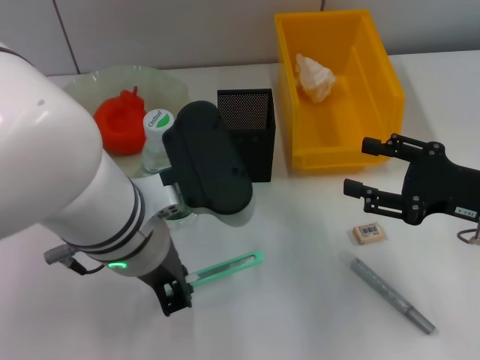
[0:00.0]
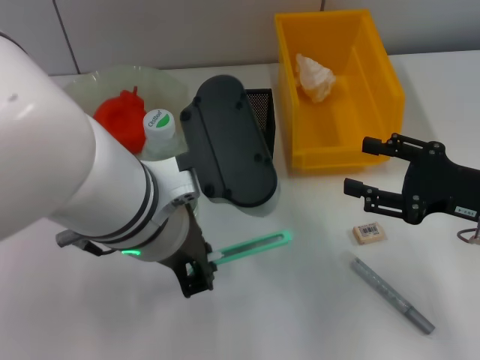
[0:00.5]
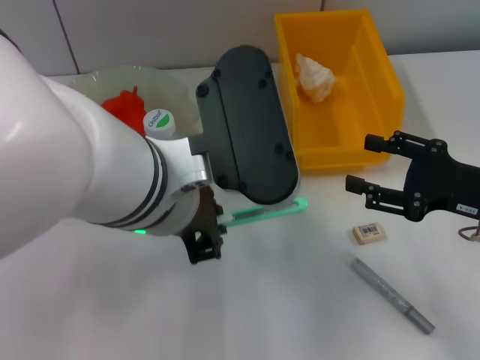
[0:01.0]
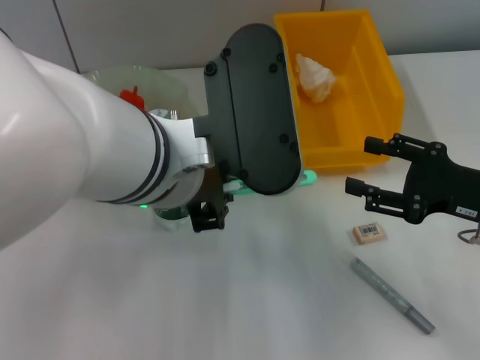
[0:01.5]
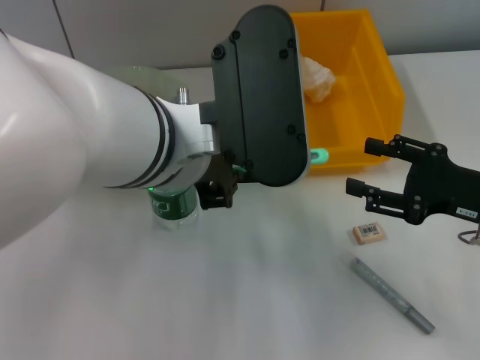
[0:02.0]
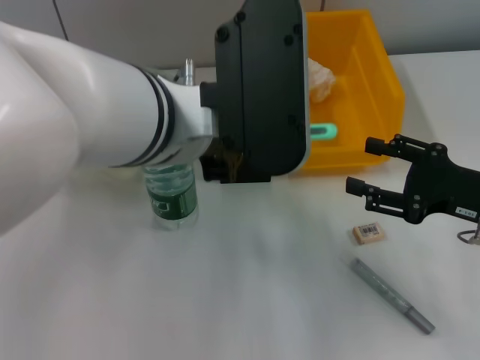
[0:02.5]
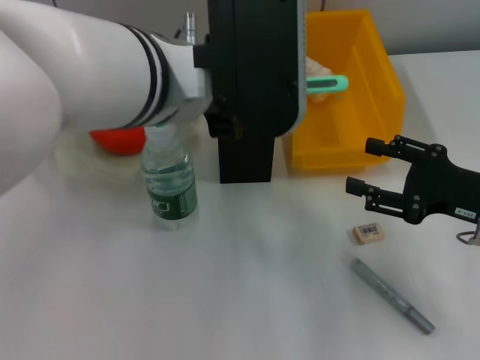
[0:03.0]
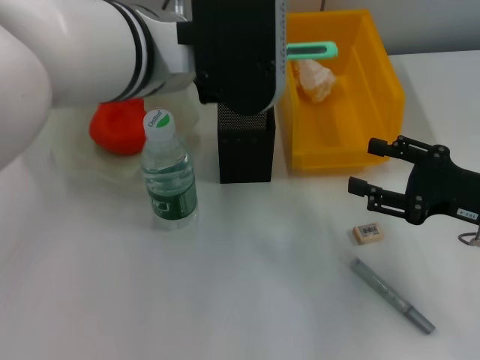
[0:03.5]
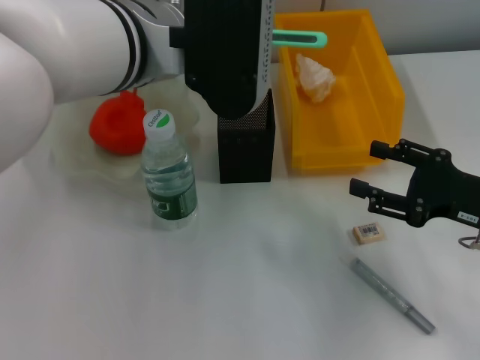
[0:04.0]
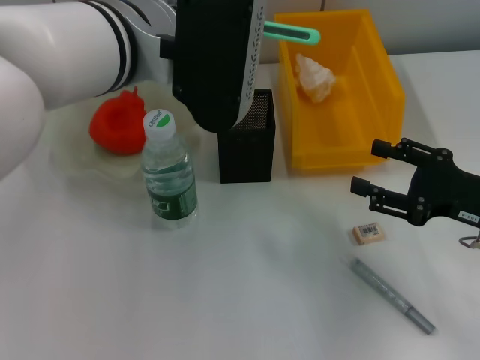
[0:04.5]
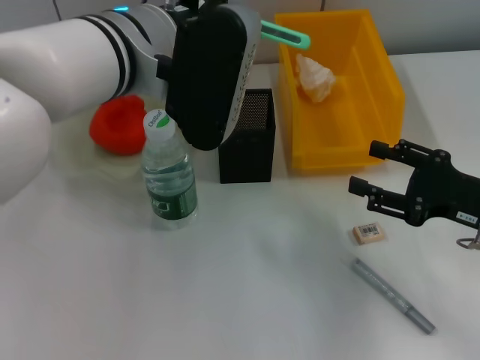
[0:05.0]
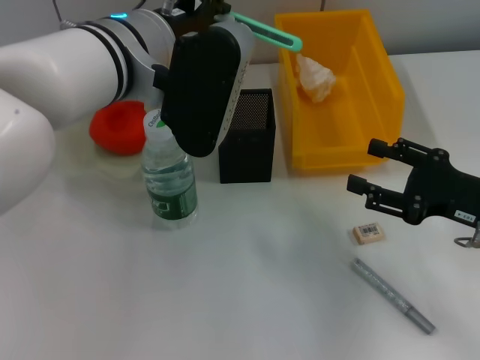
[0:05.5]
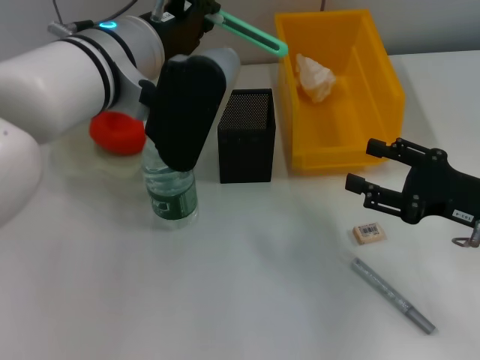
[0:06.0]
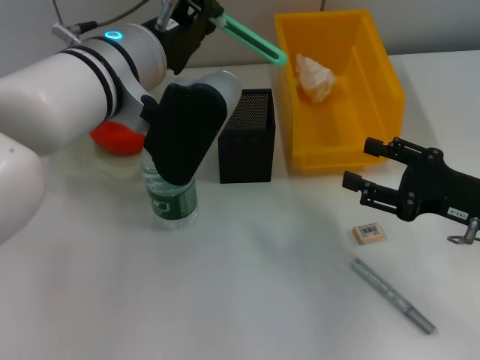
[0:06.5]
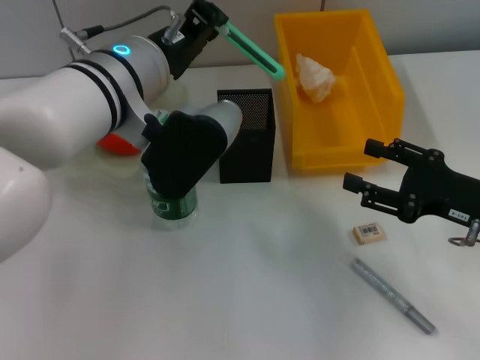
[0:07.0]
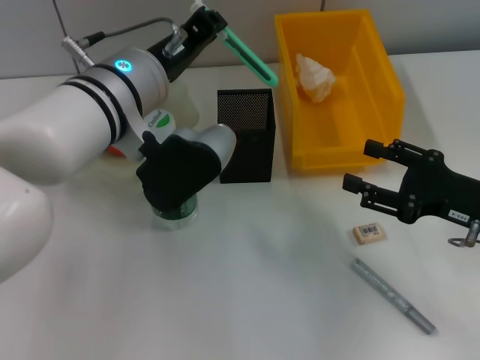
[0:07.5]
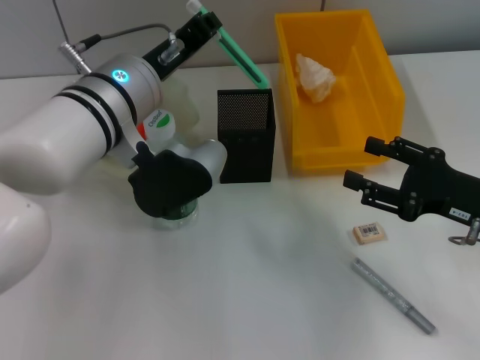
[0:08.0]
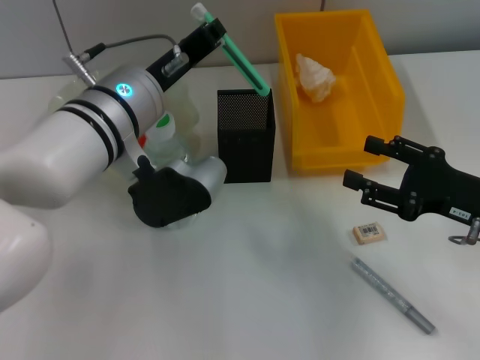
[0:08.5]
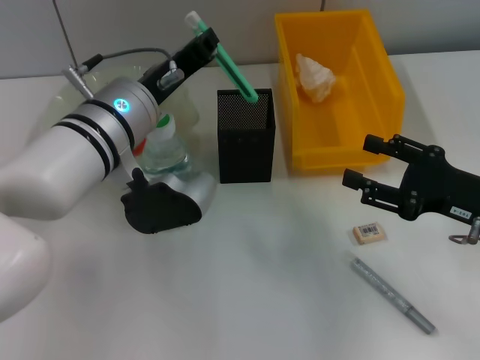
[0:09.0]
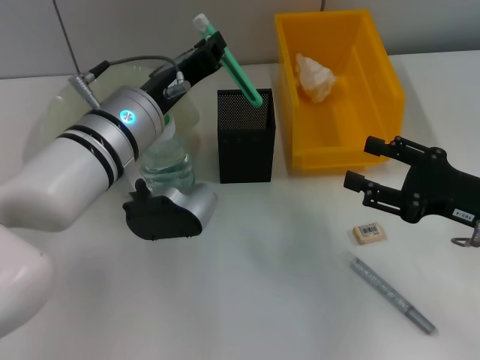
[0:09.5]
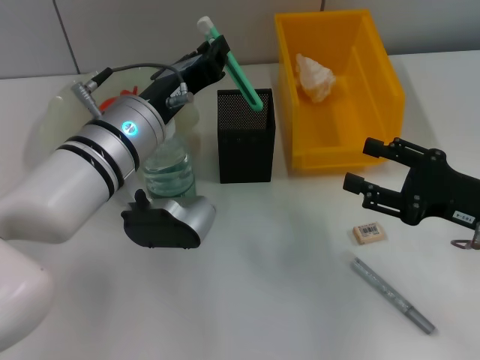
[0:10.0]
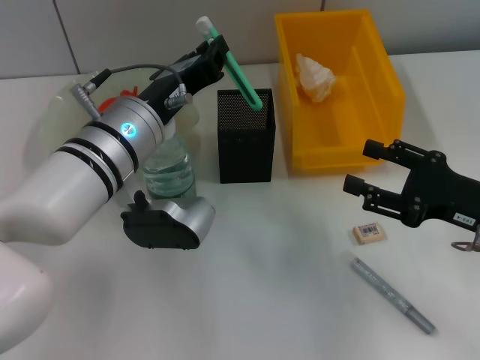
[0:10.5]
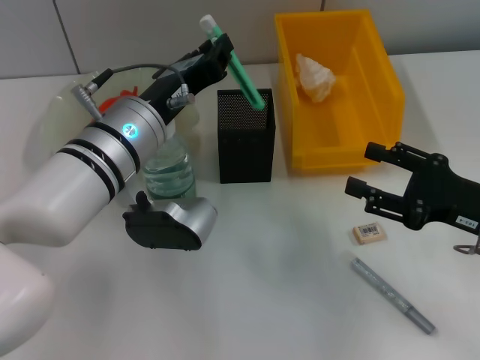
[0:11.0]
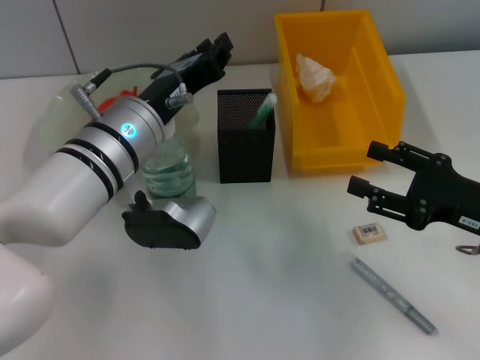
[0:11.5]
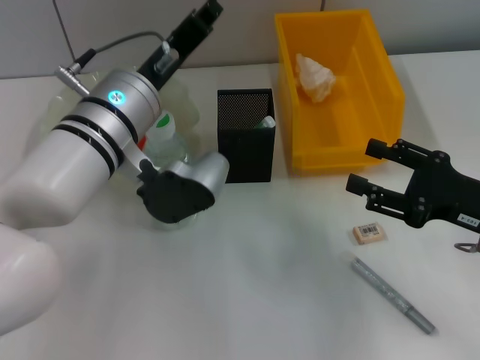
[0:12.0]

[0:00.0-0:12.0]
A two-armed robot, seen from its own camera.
Step, 0:00.0 to 0:11.0: Place the blue utility knife into the pen holder with the left hand.
0:00.0 to 0:02.0: The left gripper shifts about 5 cm upward.
0:02.0 to 0:04.0: The left gripper moves forward, approximately 5 cm.
0:04.0 to 0:06.0: The left gripper moves some 5 cm.
0:08.0 to 0:12.0: The grippers stay close to where they were, moving slightly.

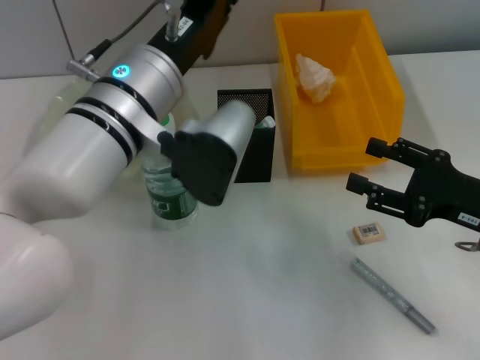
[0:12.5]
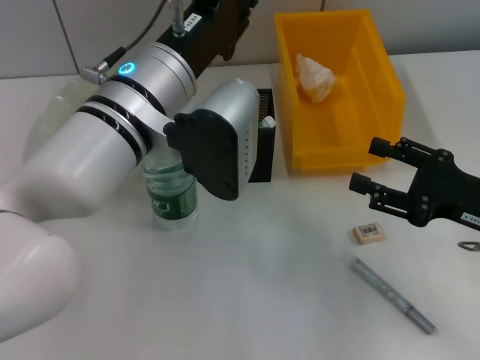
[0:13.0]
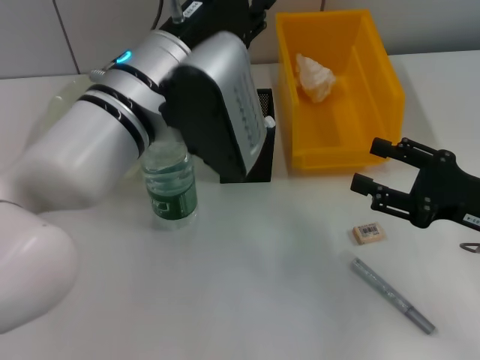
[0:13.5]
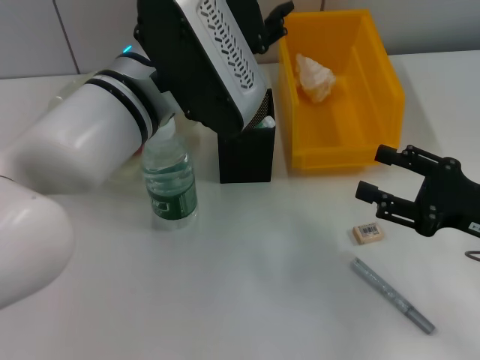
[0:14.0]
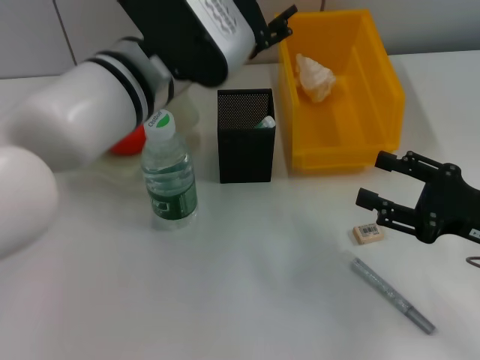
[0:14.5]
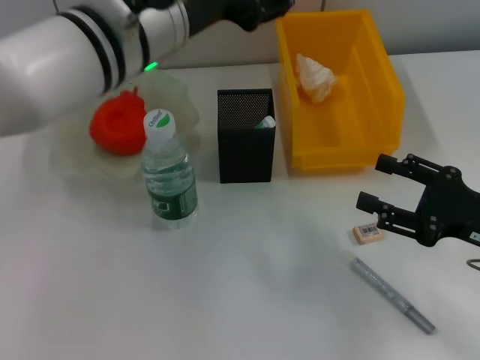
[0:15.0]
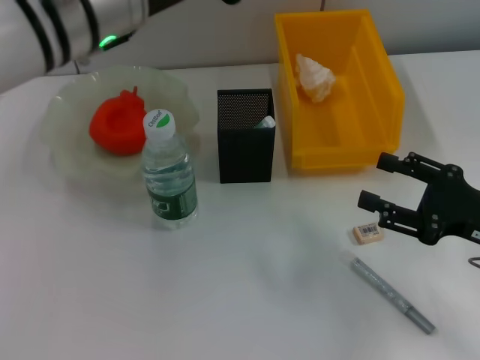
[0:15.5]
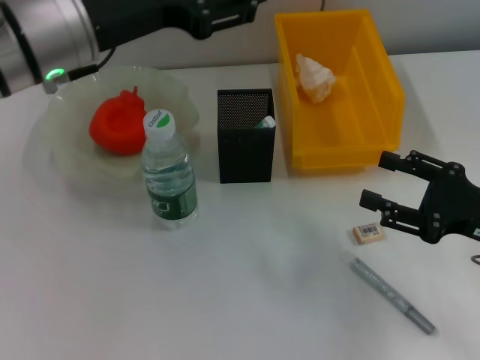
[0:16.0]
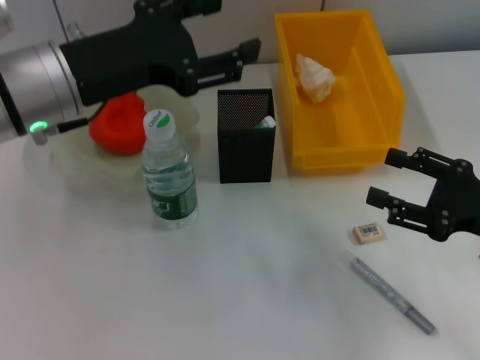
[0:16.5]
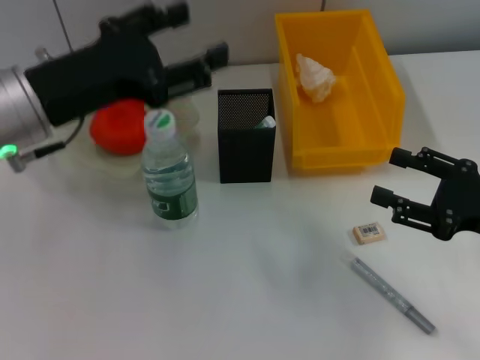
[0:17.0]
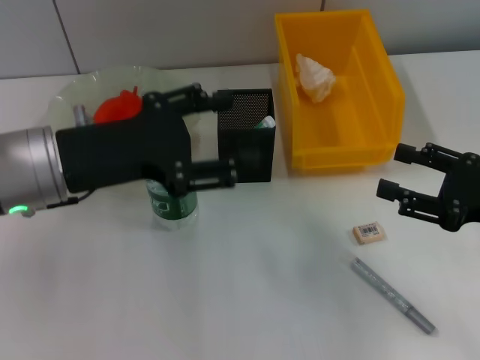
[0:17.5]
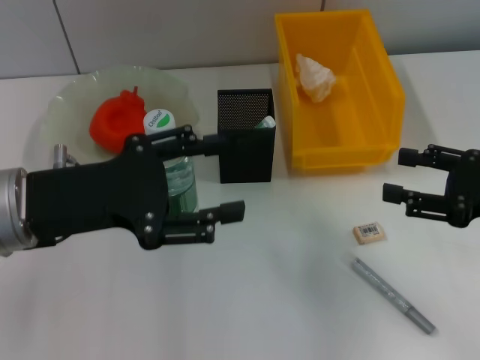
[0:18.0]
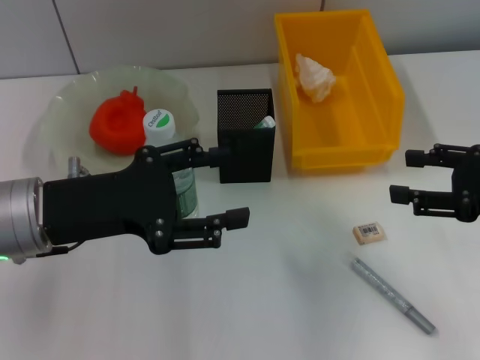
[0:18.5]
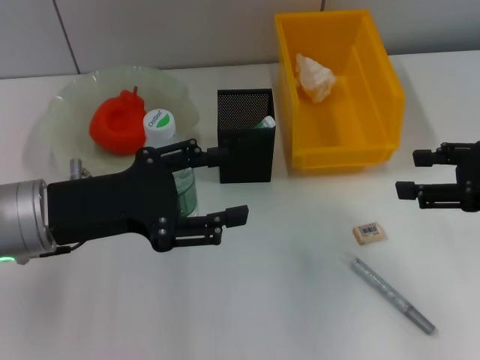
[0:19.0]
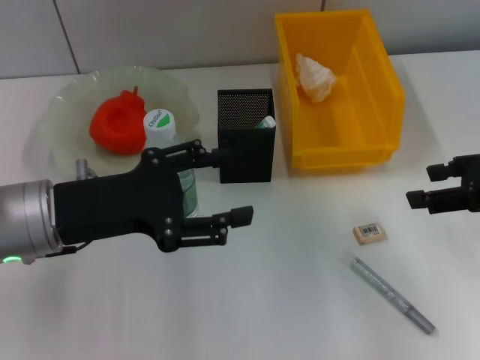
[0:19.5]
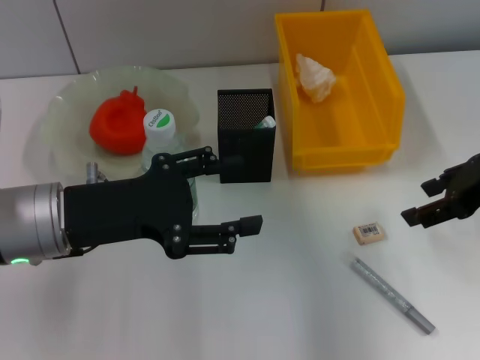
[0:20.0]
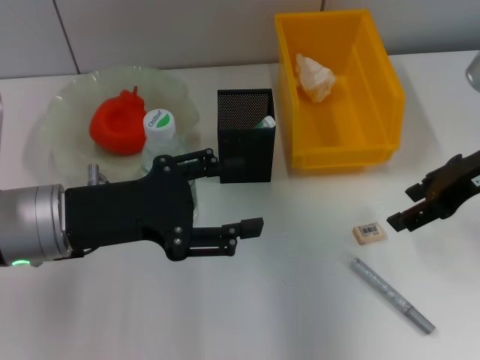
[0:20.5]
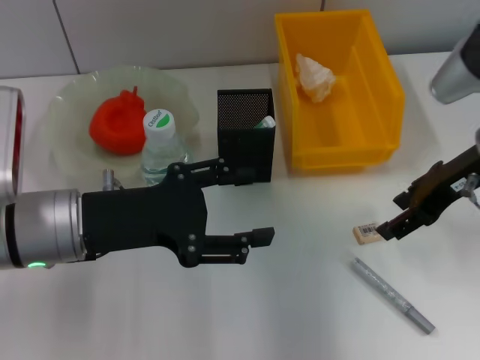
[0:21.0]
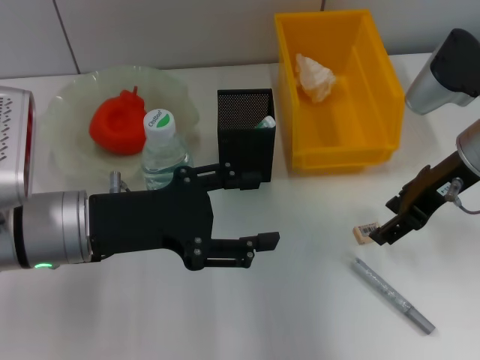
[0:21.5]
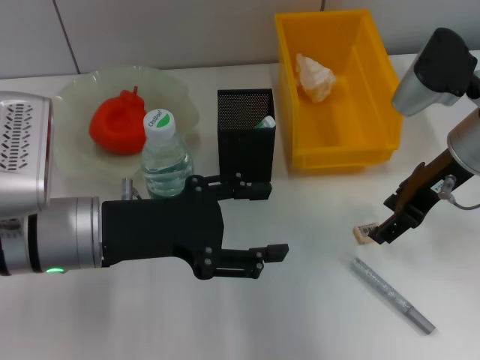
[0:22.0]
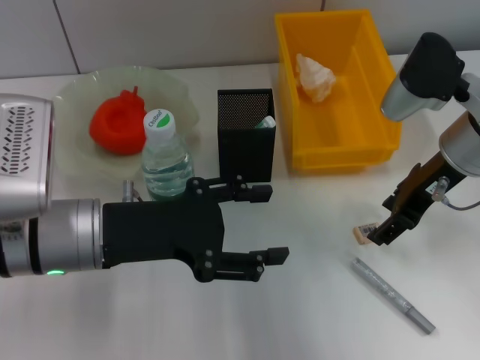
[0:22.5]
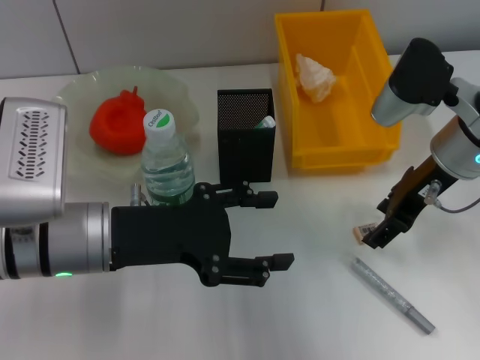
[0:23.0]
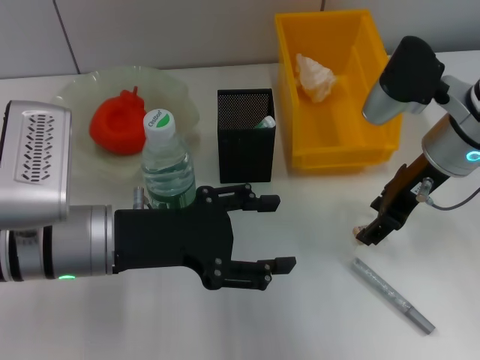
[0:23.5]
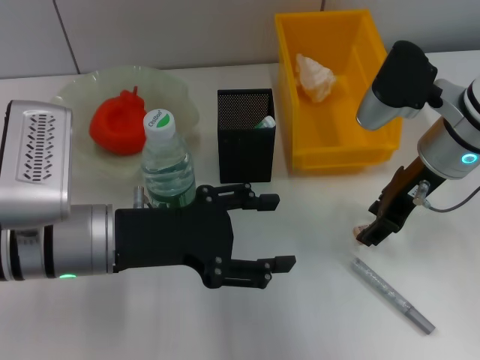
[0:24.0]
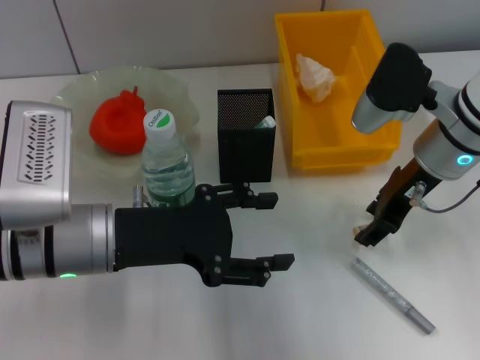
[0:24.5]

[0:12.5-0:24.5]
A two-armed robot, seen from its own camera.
0:12.5 to 0:14.5: The left gripper opens up.
0:14.5 to 0:16.5: The left gripper is displaced to the left by about 10 cm.
0:16.5 to 0:18.5: The right gripper shifts some 5 cm upward. Meanwhile the left gripper travels downward and backward by about 10 cm.
0:18.5 to 0:20.5: The right gripper goes about 10 cm forward and to the left.
0:20.5 to 0:22.5: The right gripper ends up some 5 cm from where it was.
0:22.5 to 0:24.5: The grippers make only small movements.

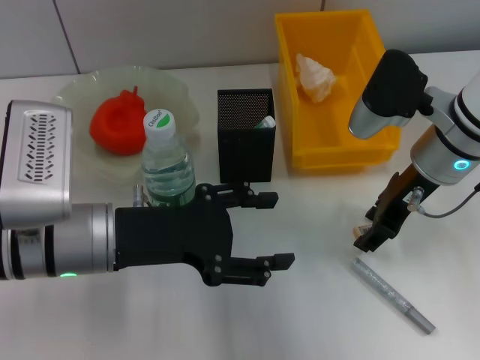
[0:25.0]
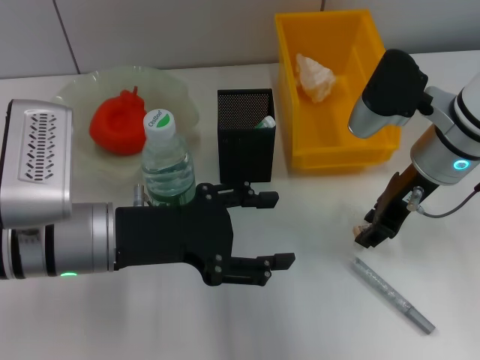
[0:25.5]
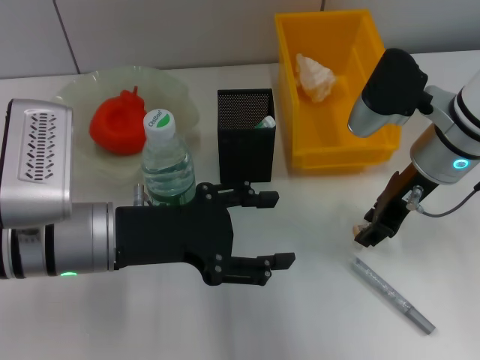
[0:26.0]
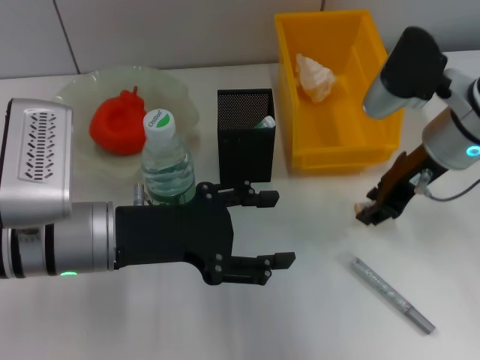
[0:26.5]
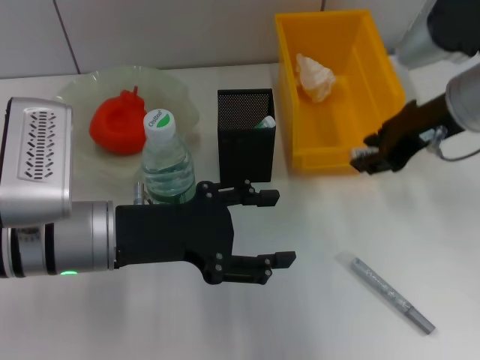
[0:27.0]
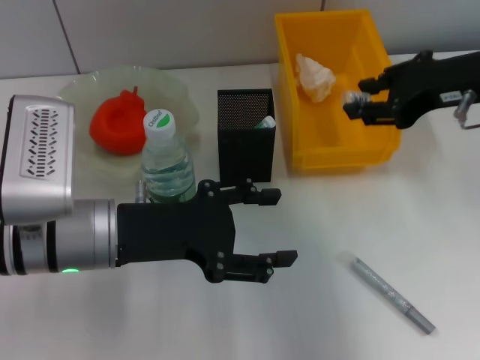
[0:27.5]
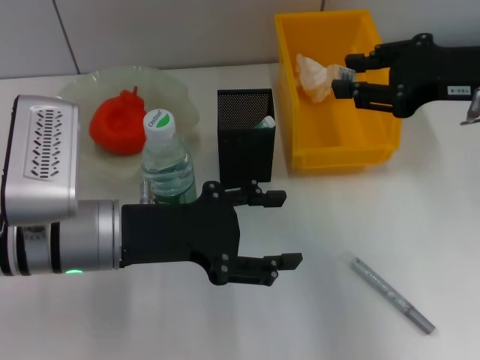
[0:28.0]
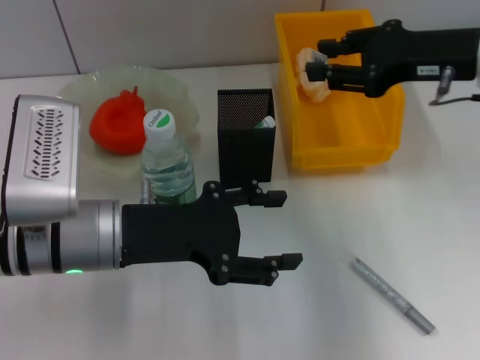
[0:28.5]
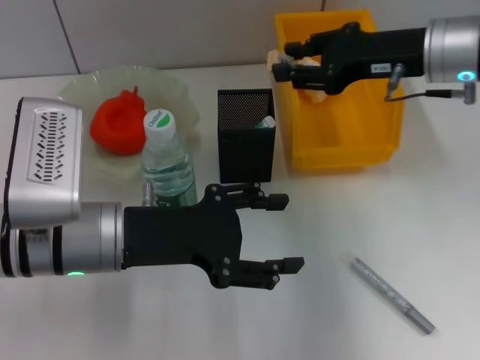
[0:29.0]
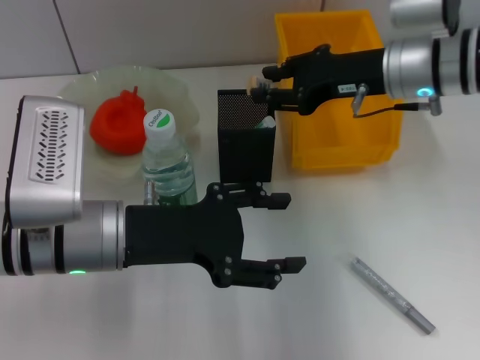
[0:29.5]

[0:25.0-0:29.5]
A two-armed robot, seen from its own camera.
0:25.0 to 0:27.0: The right gripper moves upward, about 5 cm.
0:27.0 to 0:29.5: The right gripper moves some 5 cm.
